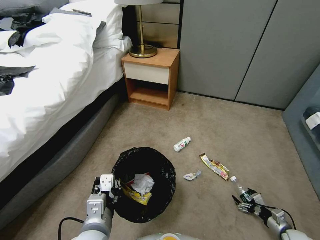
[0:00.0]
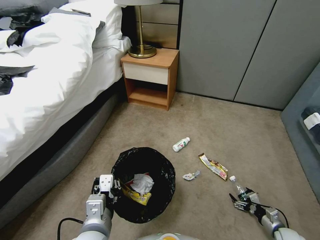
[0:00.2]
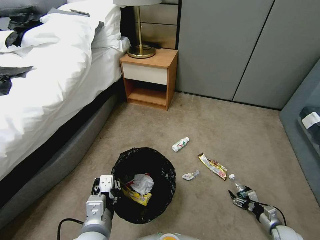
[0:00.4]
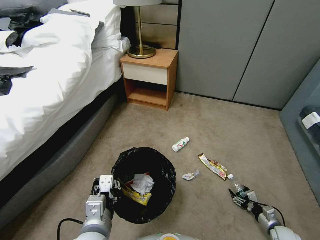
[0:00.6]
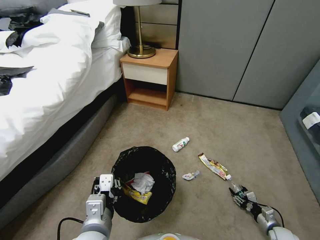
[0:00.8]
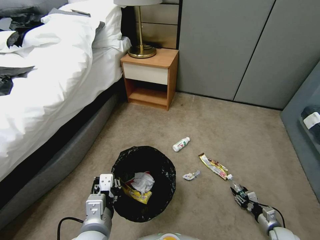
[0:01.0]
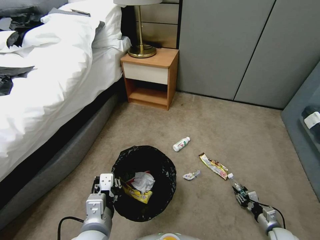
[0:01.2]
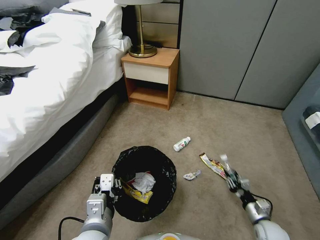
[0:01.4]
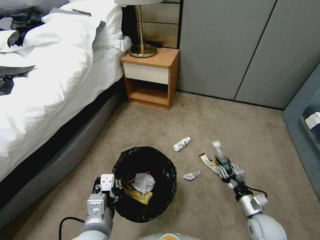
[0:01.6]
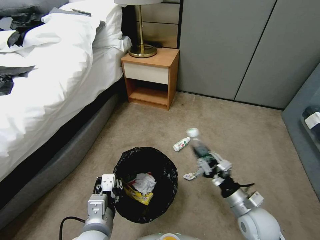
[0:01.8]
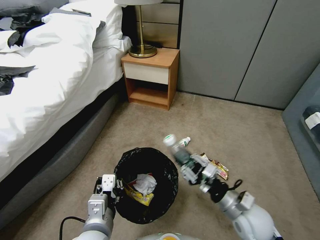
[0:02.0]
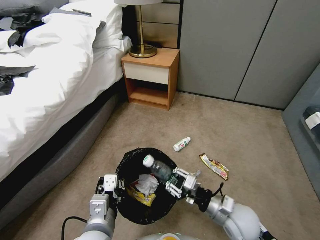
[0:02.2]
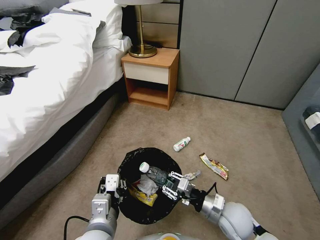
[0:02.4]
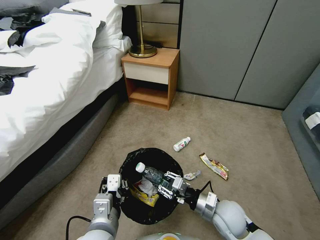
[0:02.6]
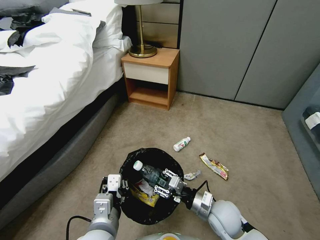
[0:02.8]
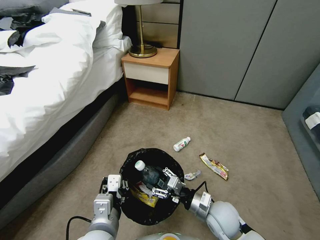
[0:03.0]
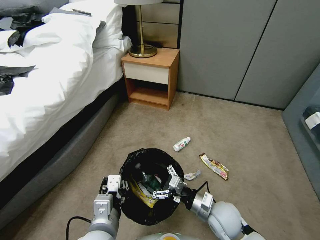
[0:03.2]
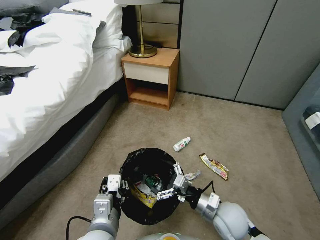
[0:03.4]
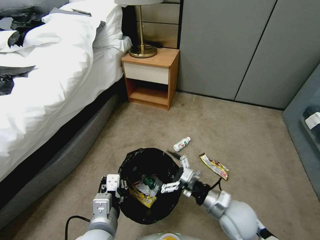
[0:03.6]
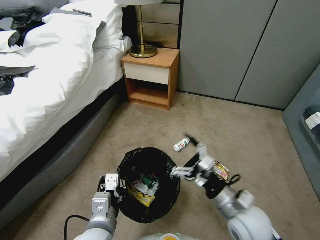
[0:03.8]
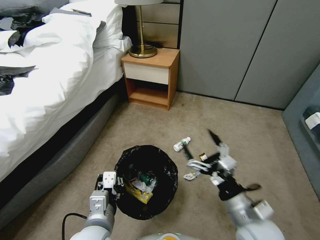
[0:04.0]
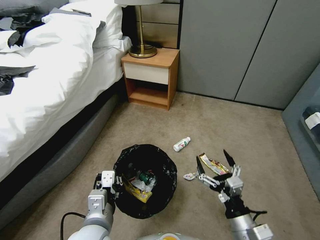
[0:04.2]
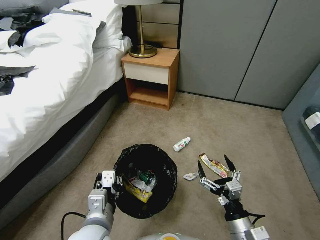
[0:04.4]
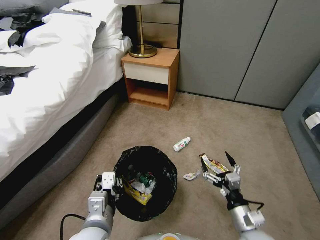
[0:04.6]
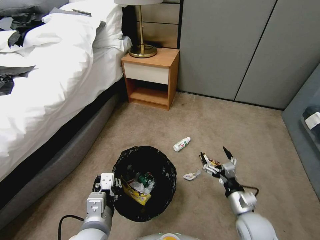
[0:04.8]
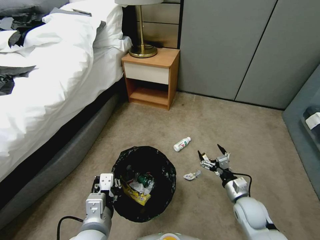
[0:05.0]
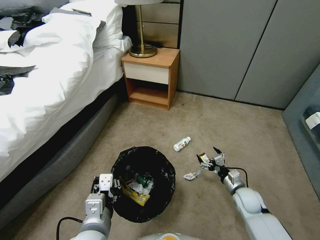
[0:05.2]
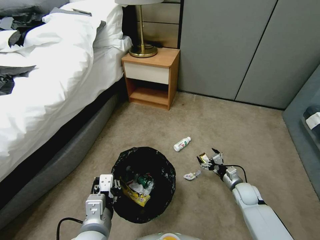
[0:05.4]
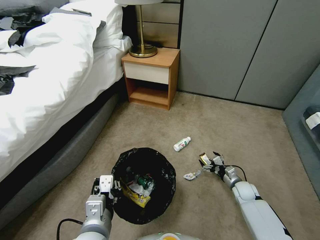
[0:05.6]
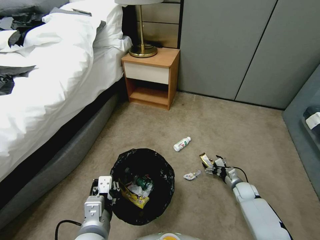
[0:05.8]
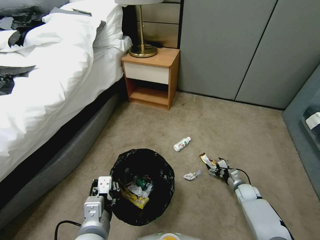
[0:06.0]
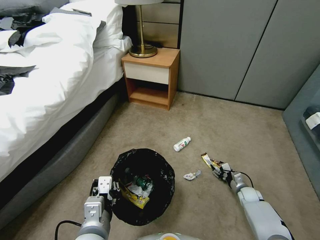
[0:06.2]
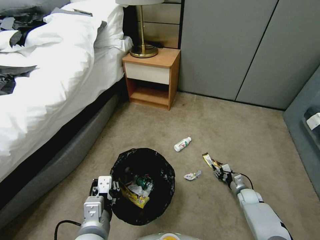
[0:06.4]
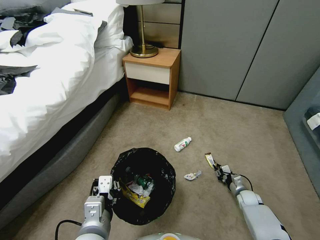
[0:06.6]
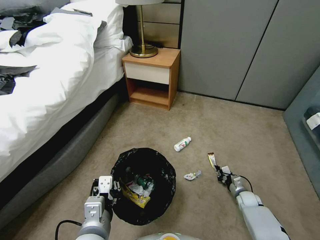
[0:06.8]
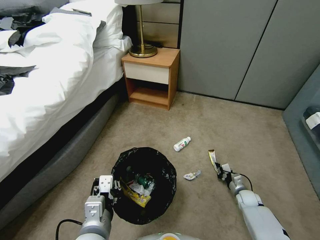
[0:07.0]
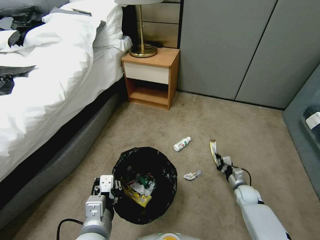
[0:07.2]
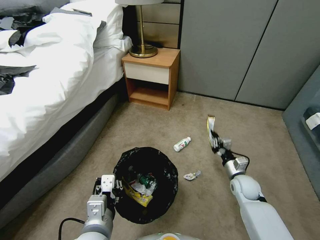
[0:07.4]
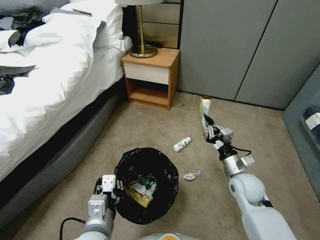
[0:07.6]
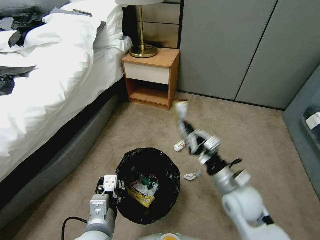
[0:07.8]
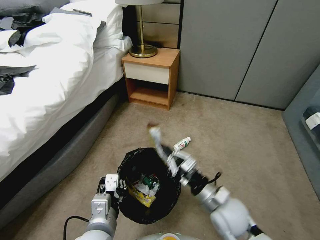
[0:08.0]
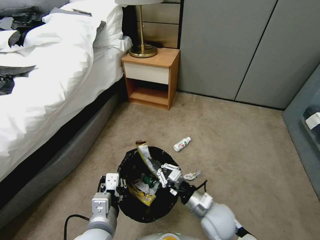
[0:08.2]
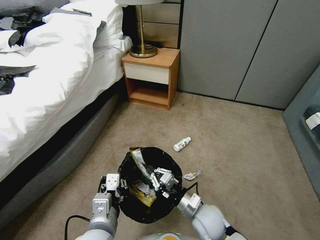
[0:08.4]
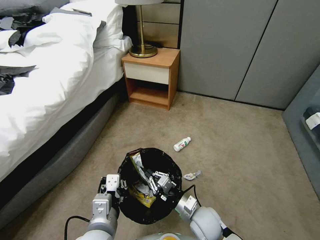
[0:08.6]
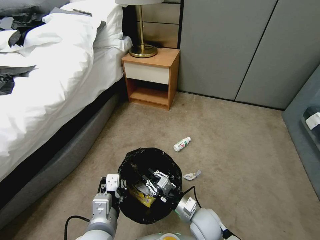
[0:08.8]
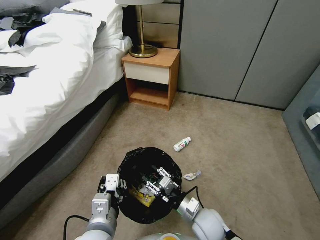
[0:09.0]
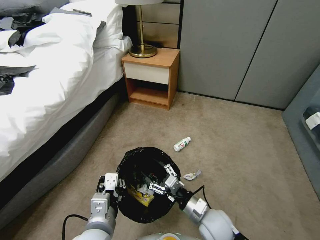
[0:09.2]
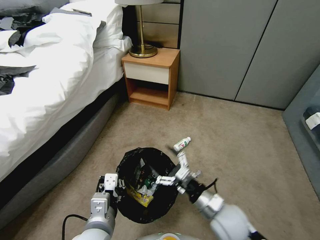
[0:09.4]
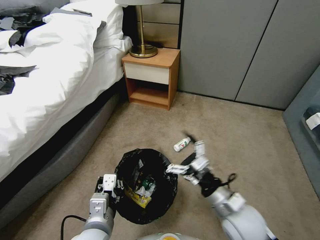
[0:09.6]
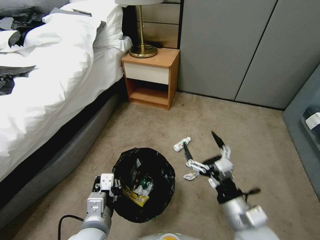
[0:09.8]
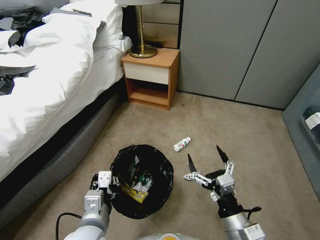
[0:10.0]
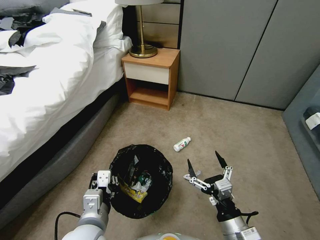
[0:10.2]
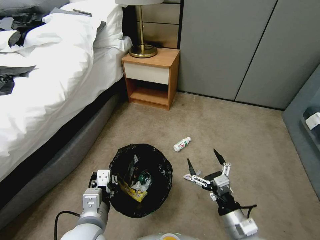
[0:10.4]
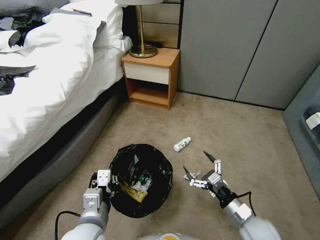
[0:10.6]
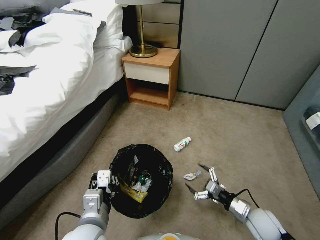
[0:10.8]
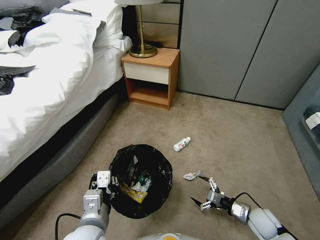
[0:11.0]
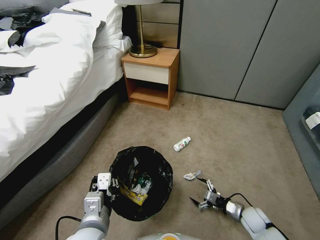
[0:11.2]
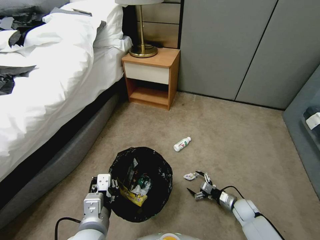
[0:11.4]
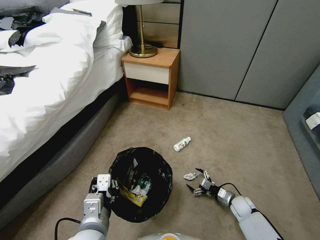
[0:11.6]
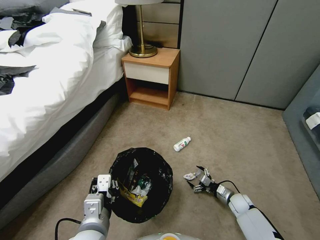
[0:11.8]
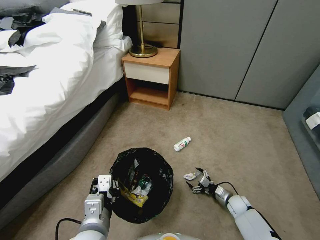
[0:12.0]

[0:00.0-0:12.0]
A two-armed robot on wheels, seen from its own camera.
Task of the whole recording: Pick up the trash bin, then pick up the garbage from the floor and place it into the trash bin.
0:00.0 to 0:01.6: The right gripper shifts roughly 20 cm to the left and upward, and closes.
0:01.6 to 0:03.0: The right gripper goes some 15 cm to the left, and opens up.
0:03.0 to 0:04.4: The right gripper travels backward and to the right by roughly 10 cm, and opens up.
0:04.4 to 0:06.0: The right gripper moves forward, downward and to the right, roughly 35 cm.
0:06.0 to 0:07.6: The right gripper shifts approximately 25 cm upward and to the left, and closes.
0:07.6 to 0:09.0: The right gripper heads to the left, backward and downward, covering approximately 15 cm, and opens.
0:09.0 to 0:10.4: The right gripper is displaced to the right, backward and upward by approximately 15 cm, and opens.
0:10.4 to 0:12.0: The right gripper shifts roughly 30 cm downward, forward and to the right.

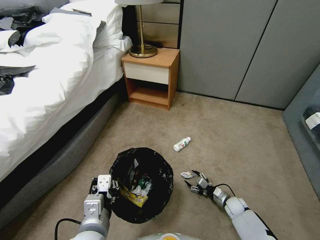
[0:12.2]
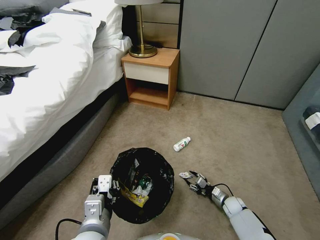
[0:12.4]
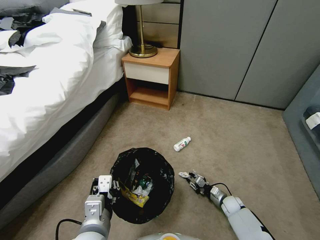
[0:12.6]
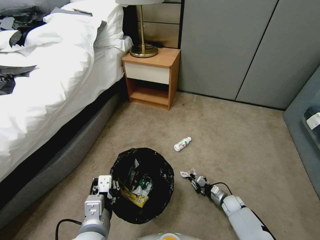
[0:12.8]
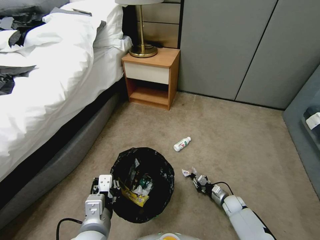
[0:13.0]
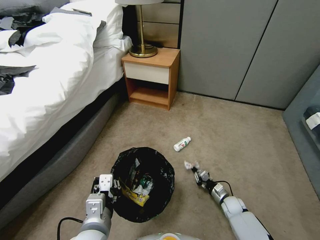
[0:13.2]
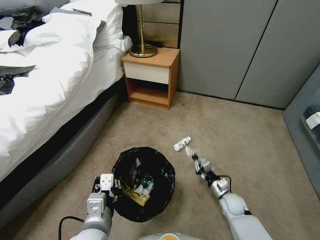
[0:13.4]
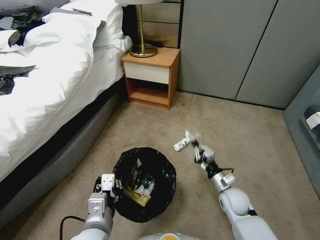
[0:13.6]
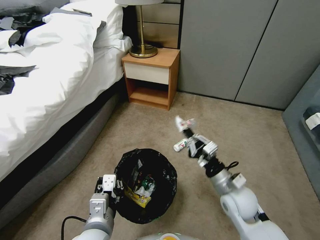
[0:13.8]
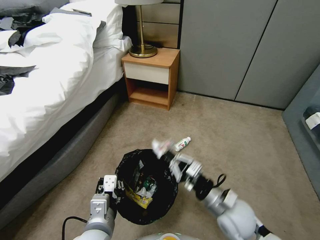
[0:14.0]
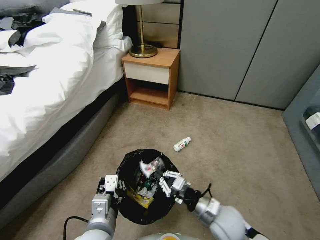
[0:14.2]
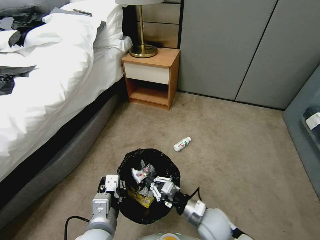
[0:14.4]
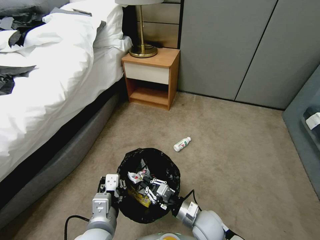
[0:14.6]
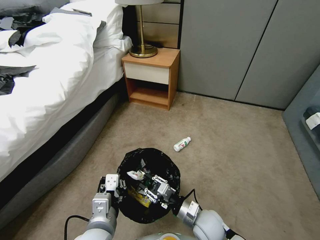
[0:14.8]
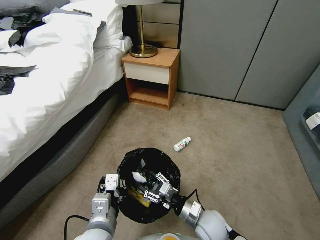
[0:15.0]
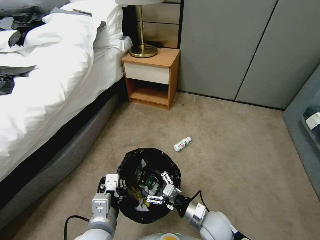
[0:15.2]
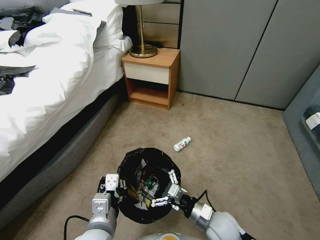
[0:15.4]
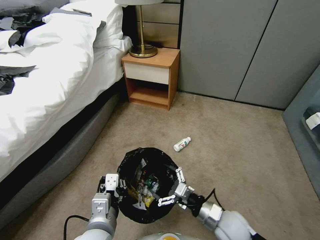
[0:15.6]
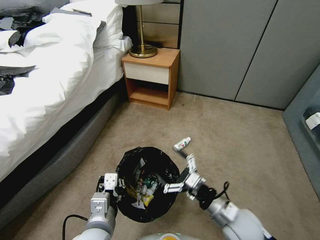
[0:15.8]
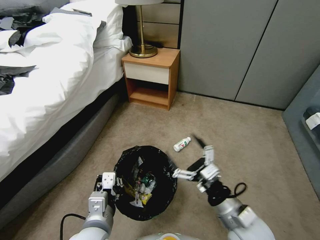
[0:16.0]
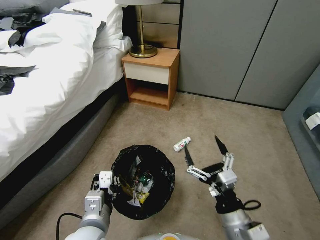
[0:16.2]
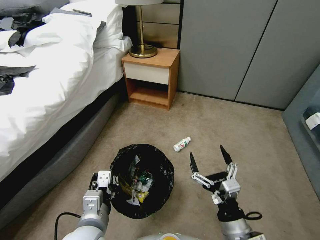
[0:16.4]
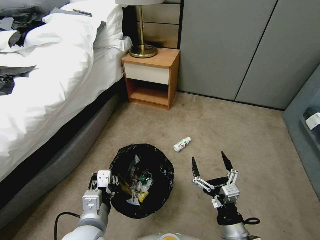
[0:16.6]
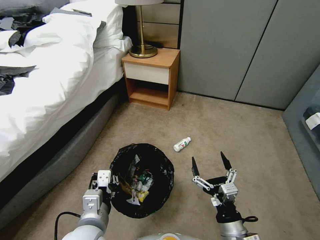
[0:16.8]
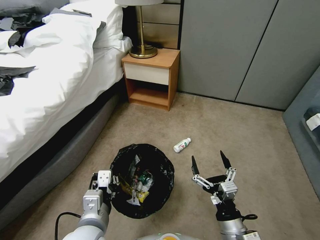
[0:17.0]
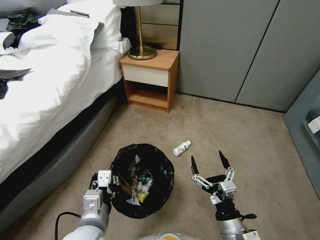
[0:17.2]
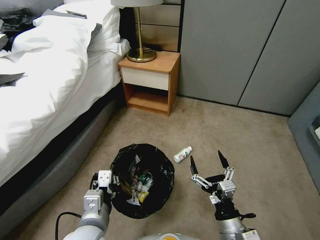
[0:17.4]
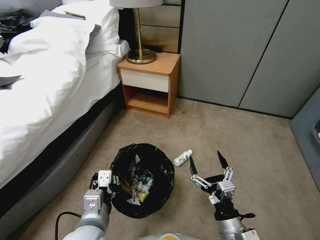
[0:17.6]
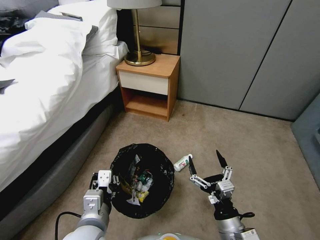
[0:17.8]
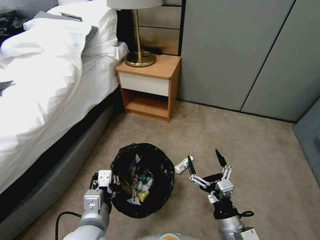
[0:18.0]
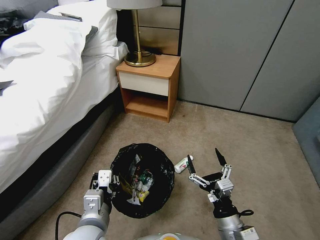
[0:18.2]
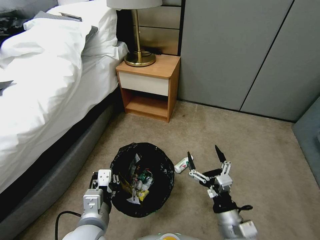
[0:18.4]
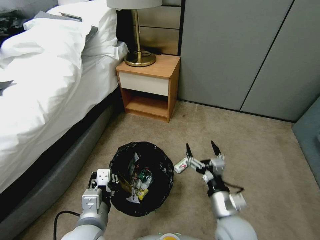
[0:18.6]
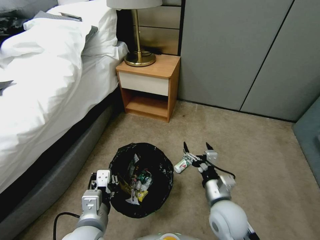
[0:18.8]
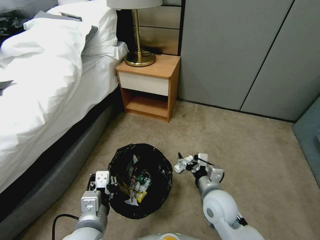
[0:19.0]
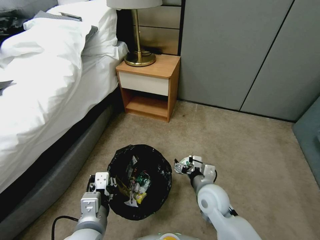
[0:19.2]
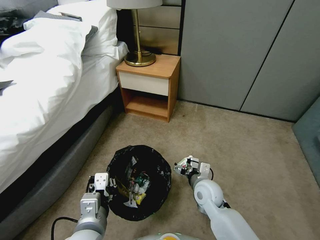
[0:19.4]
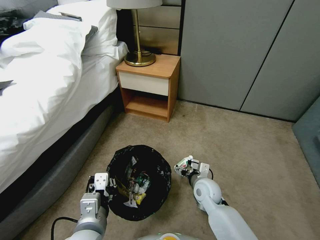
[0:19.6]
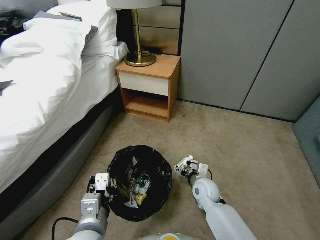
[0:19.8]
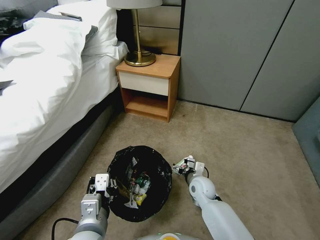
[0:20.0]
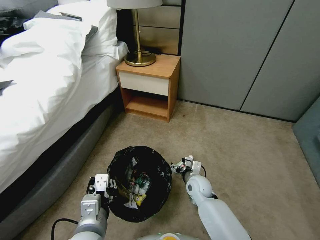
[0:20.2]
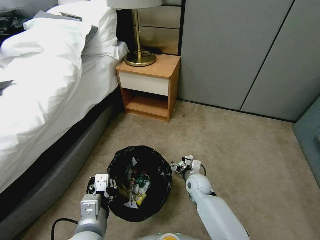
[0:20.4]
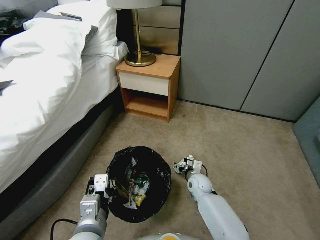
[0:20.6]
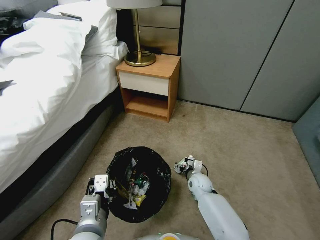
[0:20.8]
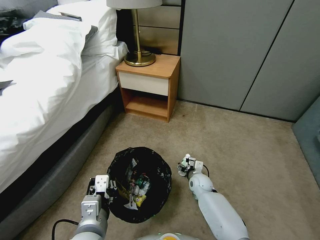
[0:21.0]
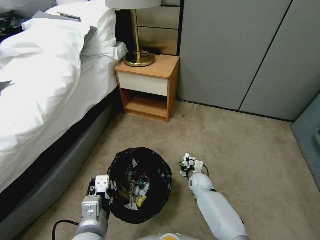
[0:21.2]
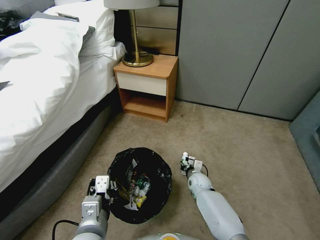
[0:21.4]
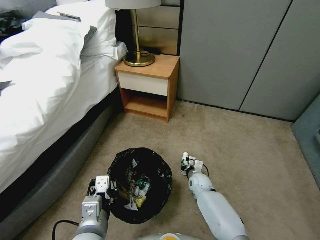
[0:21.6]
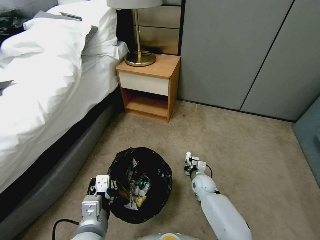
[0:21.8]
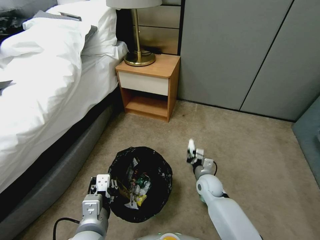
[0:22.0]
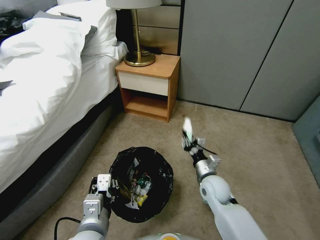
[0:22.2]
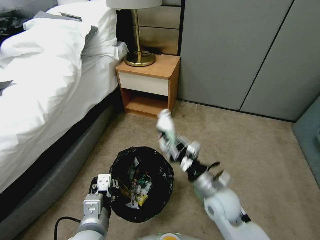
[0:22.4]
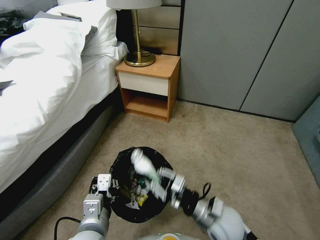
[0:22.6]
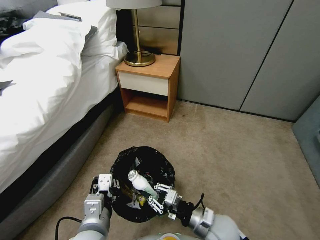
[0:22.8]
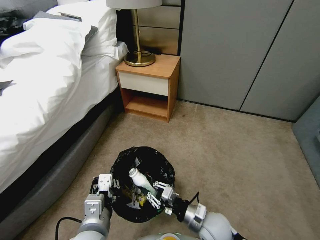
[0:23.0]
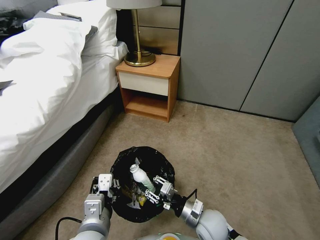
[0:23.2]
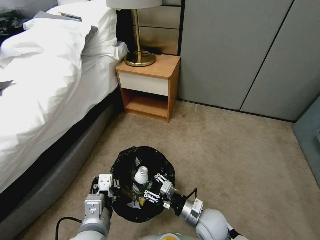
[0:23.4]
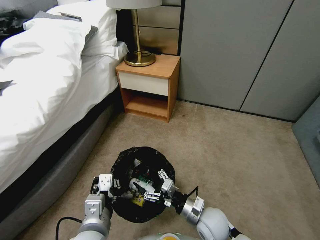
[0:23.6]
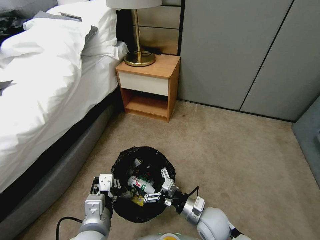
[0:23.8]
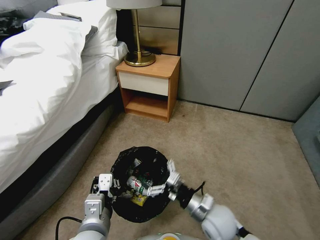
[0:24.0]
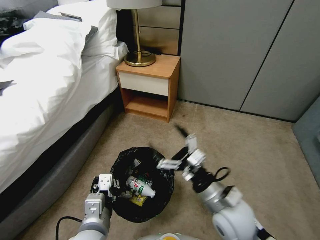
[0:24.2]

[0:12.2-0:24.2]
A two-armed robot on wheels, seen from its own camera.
Task of the whole recording: Pick up the trash bin, then pick up the garbage from the floor and place it into the trash bin.
0:12.2 to 0:13.8: The right gripper heads upward and to the left, covering approximately 30 cm, and closes.
0:13.8 to 0:15.2: The right gripper heads downward, to the left and backward, covering about 15 cm, and opens.
0:15.2 to 0:16.6: The right gripper moves backward and upward, roughly 10 cm.
0:18.2 to 0:19.8: The right gripper shifts roughly 20 cm forward and downward.
0:19.8 to 0:21.2: The right gripper goes roughly 10 cm downward and forward, and closes.
0:21.2 to 0:22.6: The right gripper is displaced upward and backward by about 25 cm, and closes up.
0:22.6 to 0:24.2: The right gripper opens.
